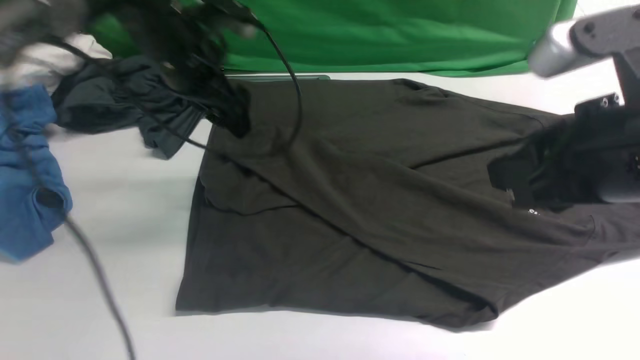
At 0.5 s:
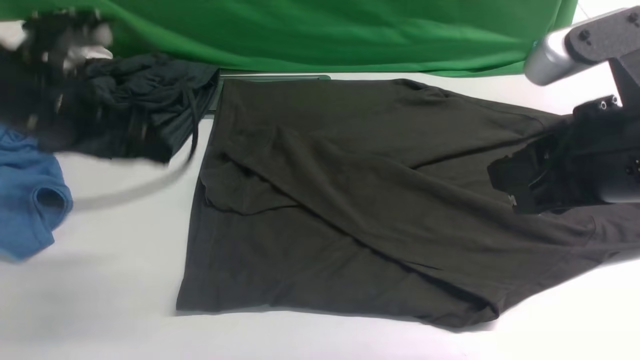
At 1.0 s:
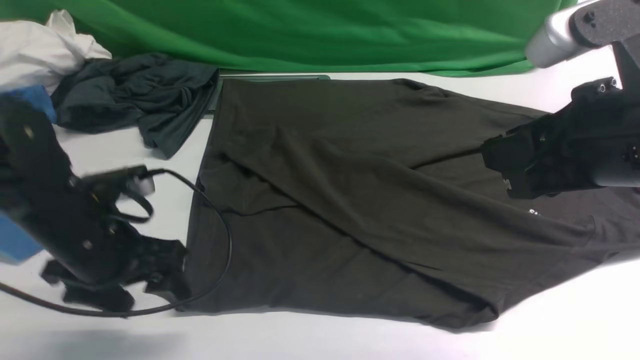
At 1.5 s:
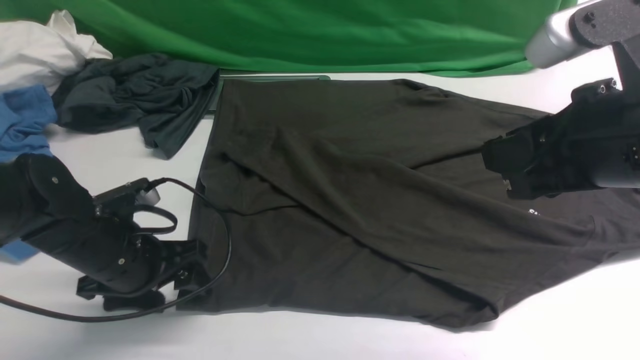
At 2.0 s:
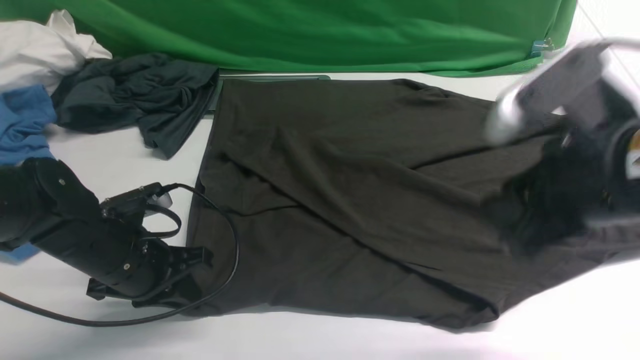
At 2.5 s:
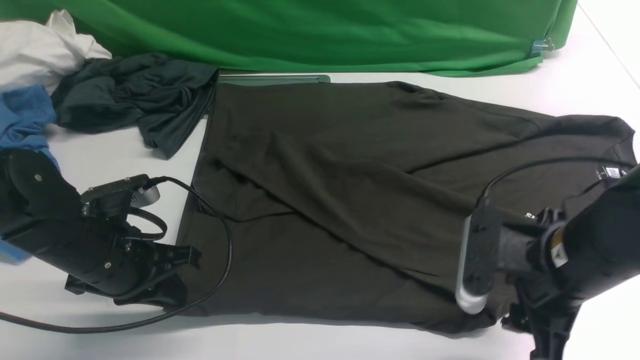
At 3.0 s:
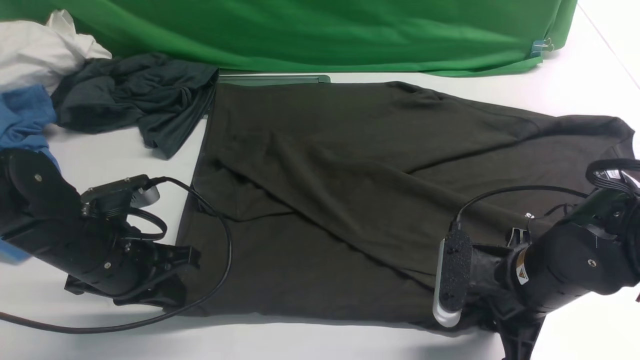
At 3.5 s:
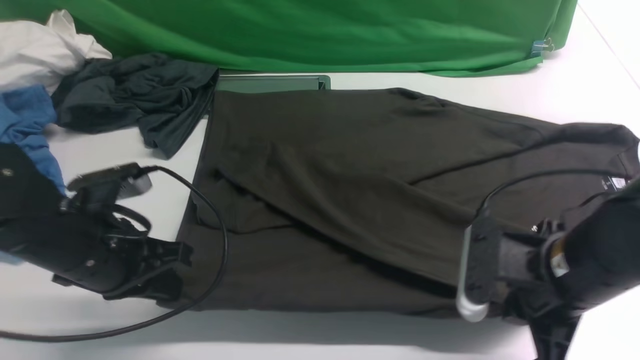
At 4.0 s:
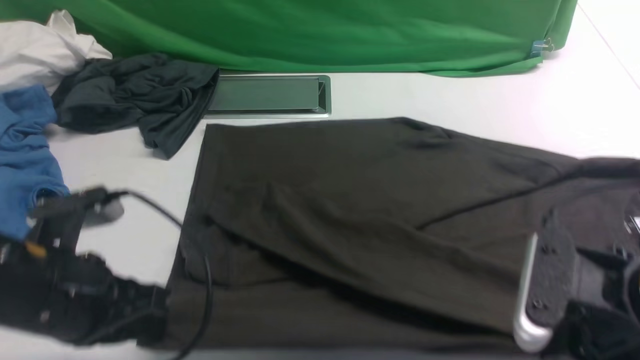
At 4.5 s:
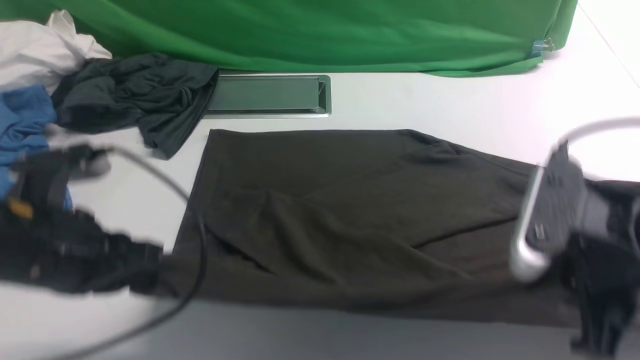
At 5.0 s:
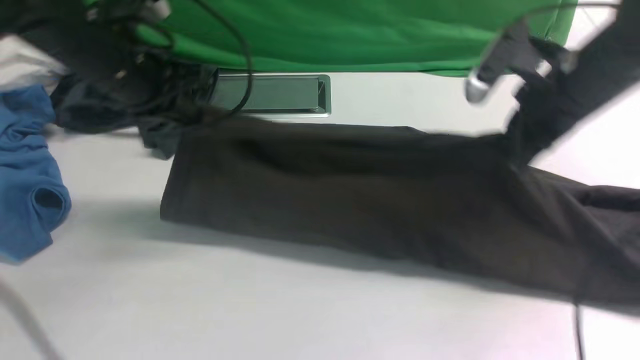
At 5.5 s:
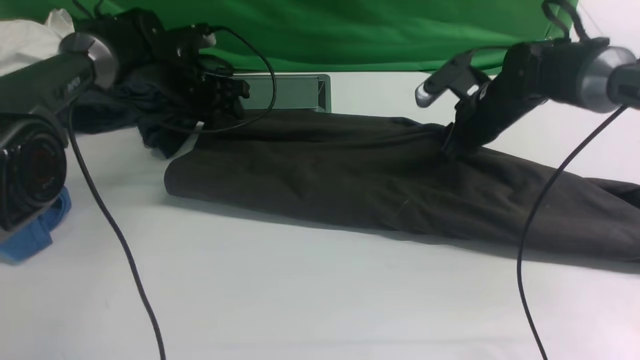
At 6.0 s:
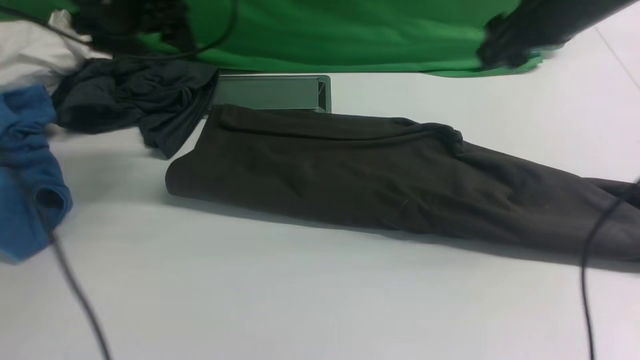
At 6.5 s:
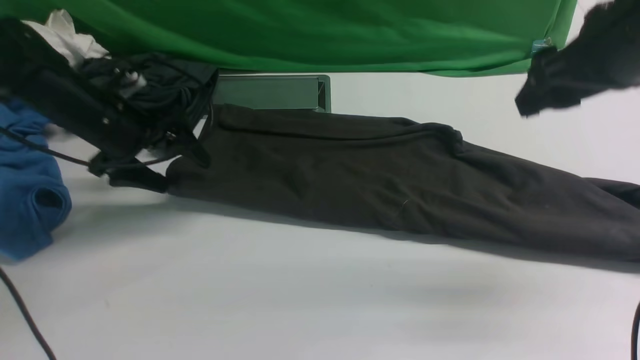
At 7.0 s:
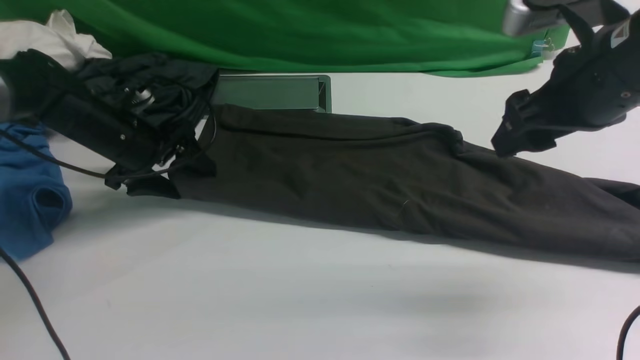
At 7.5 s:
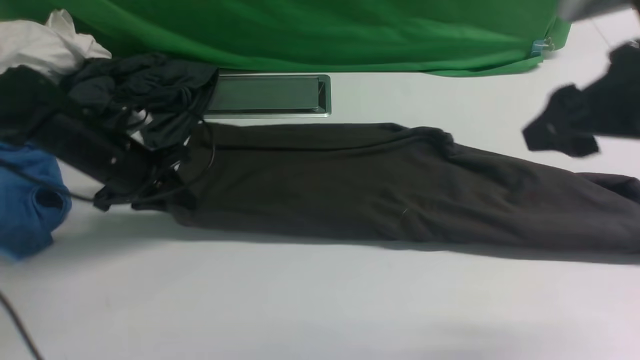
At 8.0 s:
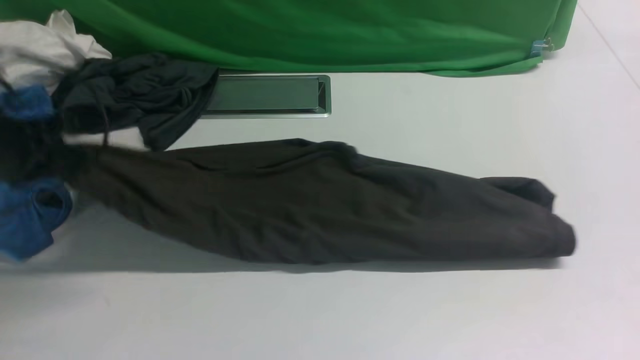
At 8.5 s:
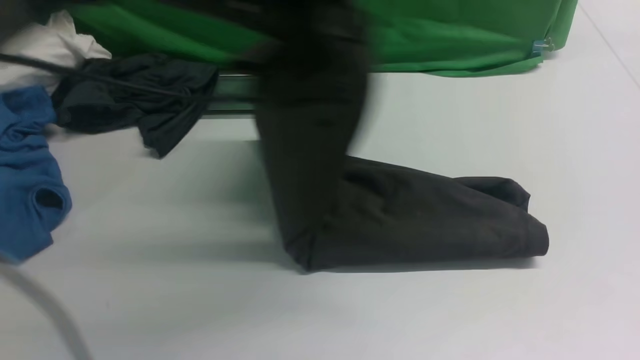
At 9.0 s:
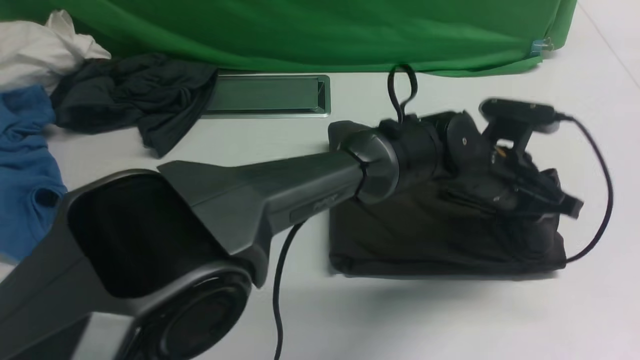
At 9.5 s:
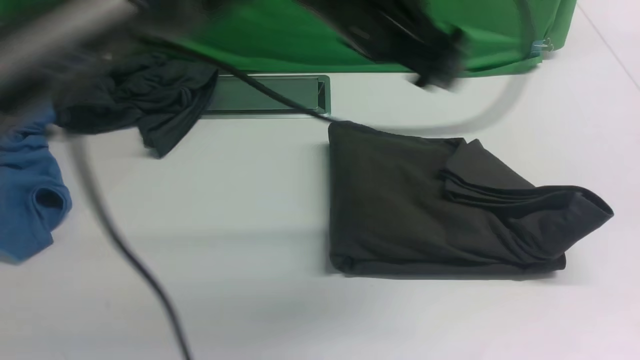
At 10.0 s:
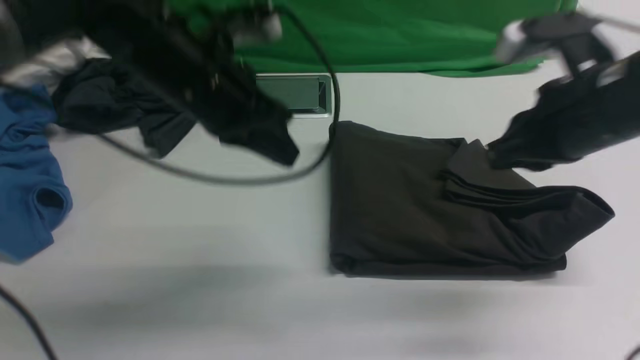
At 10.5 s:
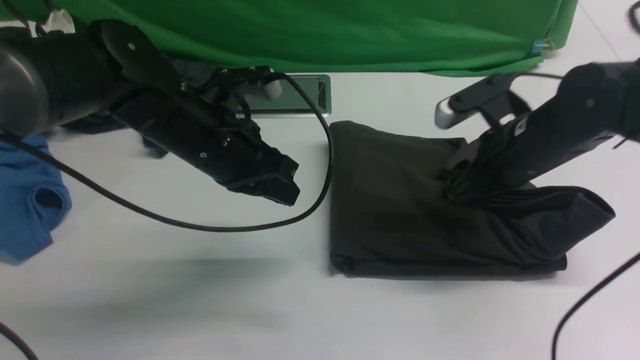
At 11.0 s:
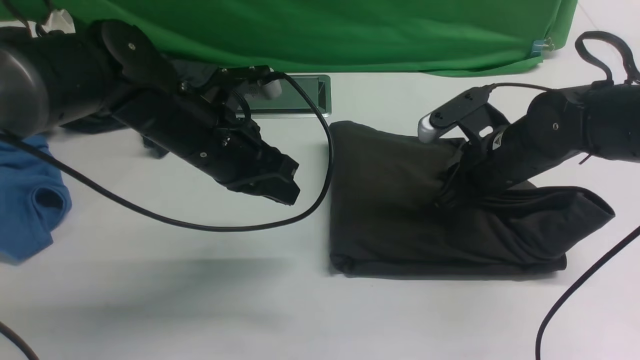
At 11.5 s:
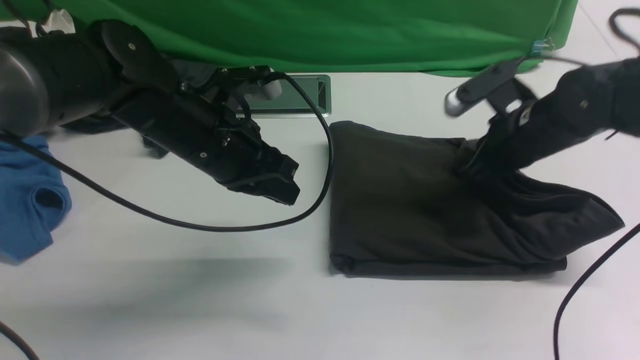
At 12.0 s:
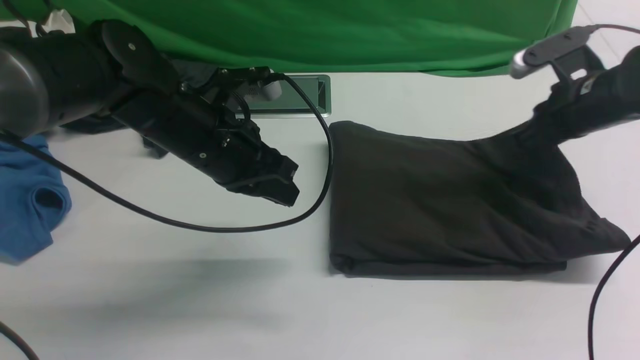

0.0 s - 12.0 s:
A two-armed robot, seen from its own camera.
Step, 0.5 s - 3.0 s: use both arms simultaneously to clamp the lower edge of the clothing fabric.
Step, 4.0 s - 5.5 s: use both arms to drag the lower edge of the fabric forward and fold it over the upper edge.
Step, 6.0 s - 7.5 s: Hold the left edge of the fabric with your left arm.
Step, 8.0 s - 9.0 s: Drag the left edge of the fabric to the left with your left arm and fold it to the right edge.
0.0 s - 2.0 s: The left gripper moves backward and downward, some 20 cm, and closes.
2.0 s - 4.0 s: The left gripper goes roughly 10 cm backward and upward, while the right gripper is displaced downward and backward by roughly 10 cm, and closes up.
4.0 s - 6.0 s: The left gripper shifts roughly 30 cm forward, and opens its fingers. Meanwhile the right gripper moves forward and upward, about 25 cm, and opens up.
6.0 s - 8.0 s: The left gripper is displaced backward by some 15 cm, and closes up. The right gripper heads backward, covering about 25 cm, and closes its fingers.
8.0 s - 10.0 s: The right gripper moves forward and downward, some 15 cm, while the left gripper moves to the right, some 20 cm, and opens and closes again.
10.0 s - 12.0 s: The right gripper goes roughly 15 cm forward, downward and to the right, and opens, then closes again, while the left gripper heads downward, covering some 5 cm.

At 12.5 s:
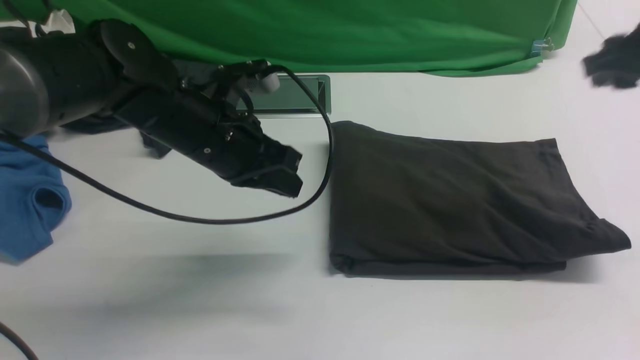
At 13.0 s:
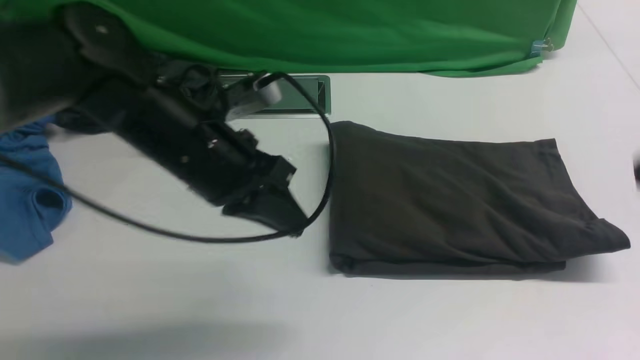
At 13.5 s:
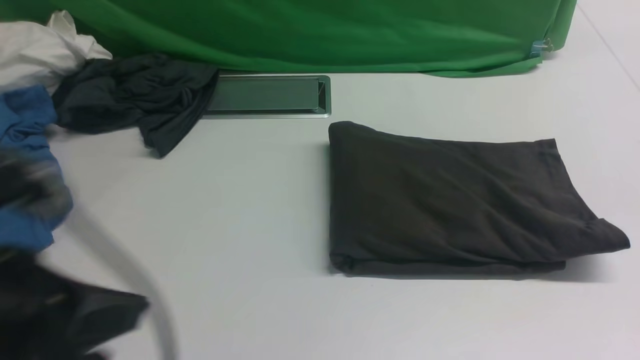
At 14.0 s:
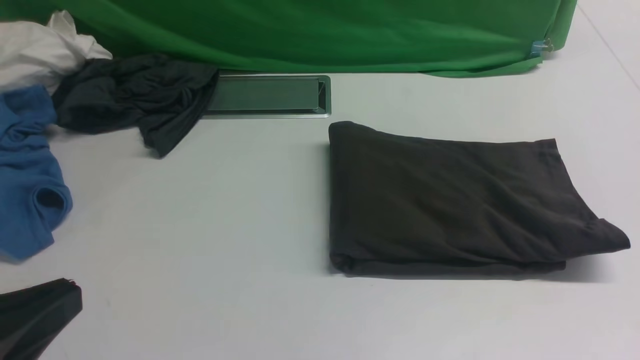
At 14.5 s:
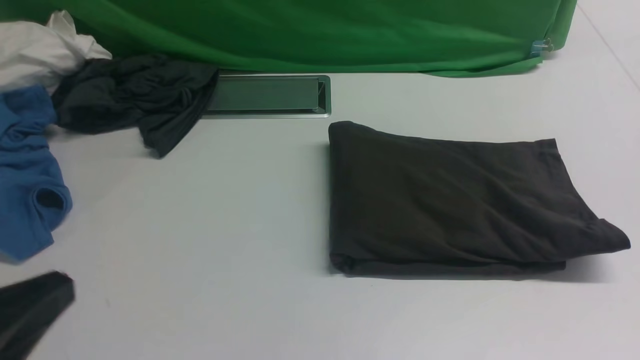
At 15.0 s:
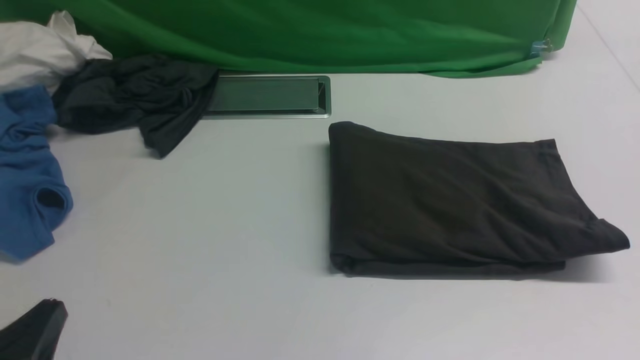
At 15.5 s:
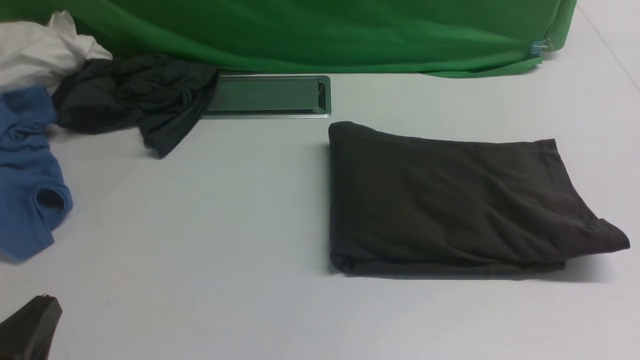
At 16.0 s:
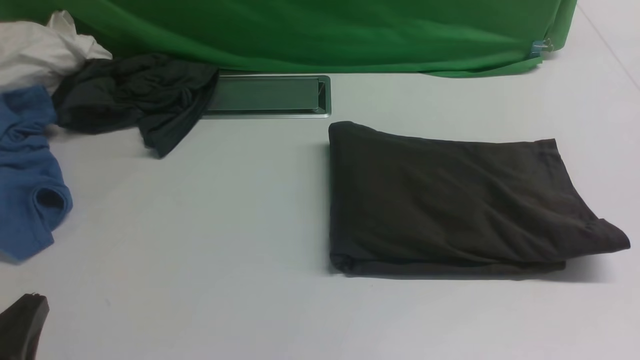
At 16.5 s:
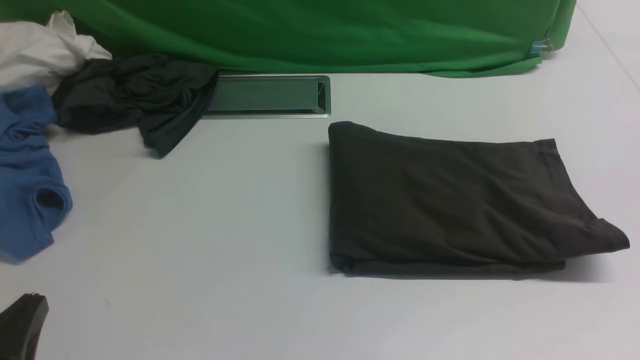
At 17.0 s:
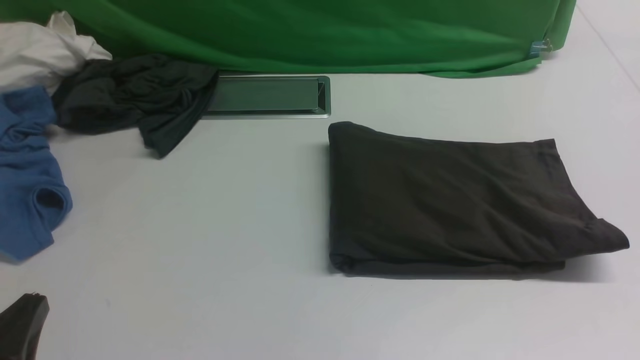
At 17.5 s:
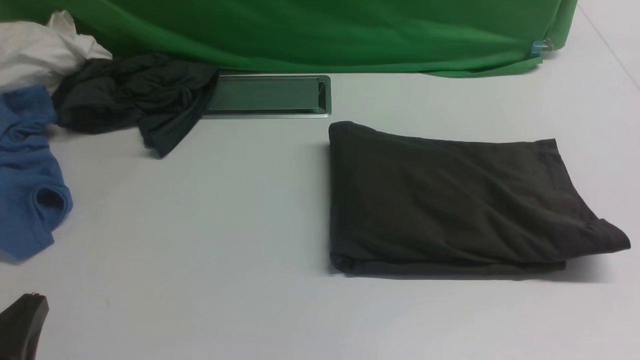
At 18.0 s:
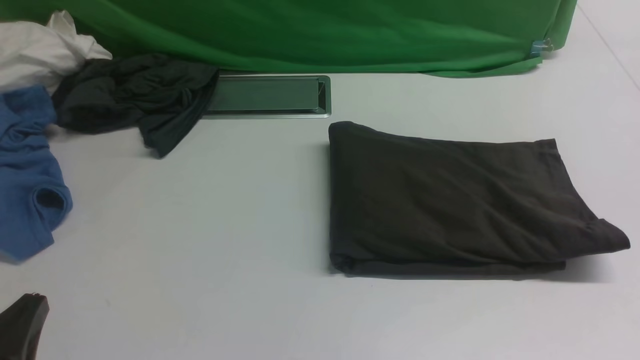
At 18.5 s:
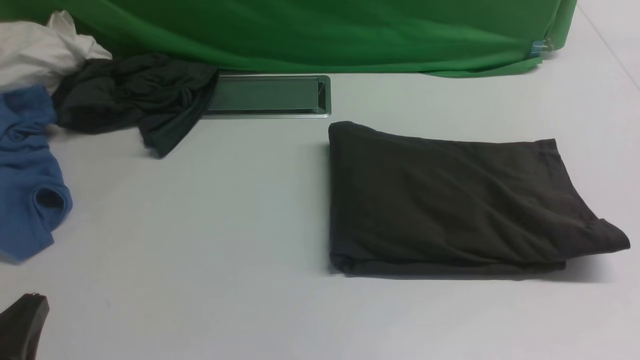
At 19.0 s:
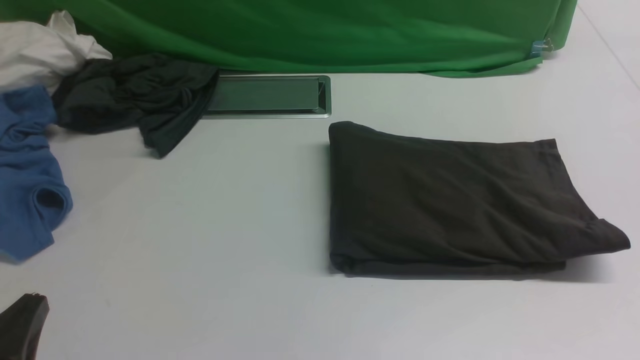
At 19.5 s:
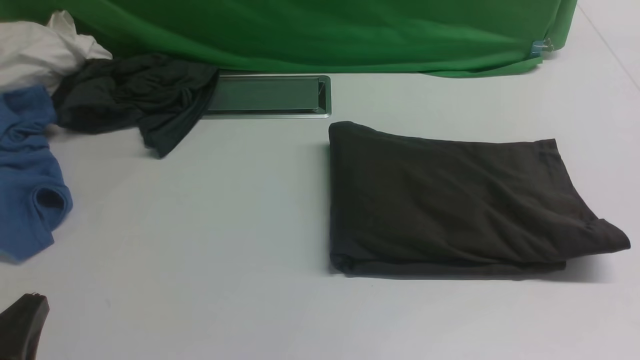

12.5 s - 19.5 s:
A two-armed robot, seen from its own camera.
12.5 s - 14.5 s: The grippers both shift backward by some 30 cm.
14.5 s - 16.0 s: The left gripper is displaced downward by about 10 cm.
17.5 s - 19.5 s: Neither gripper changes place.
